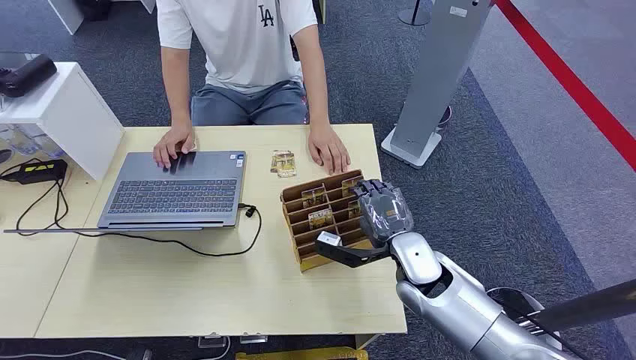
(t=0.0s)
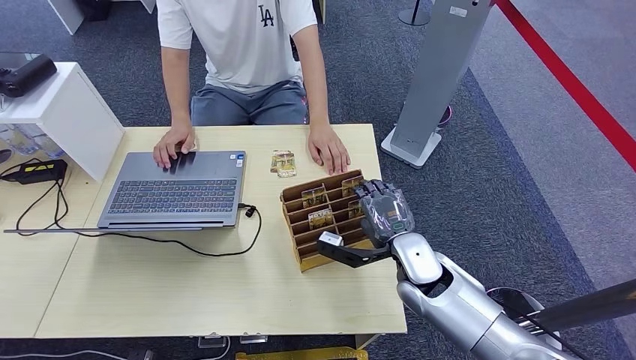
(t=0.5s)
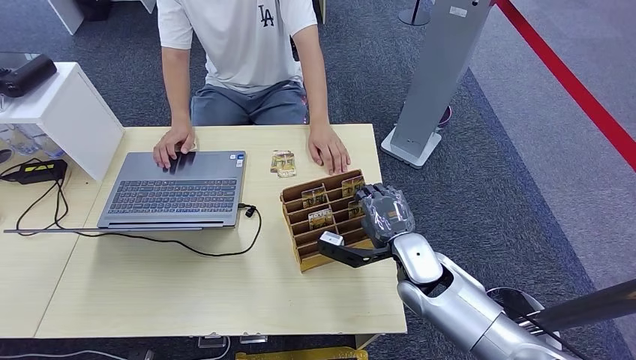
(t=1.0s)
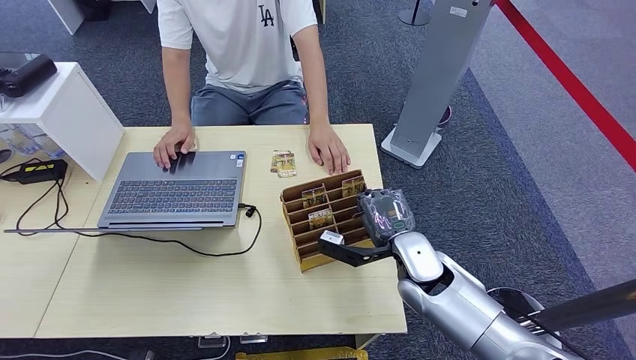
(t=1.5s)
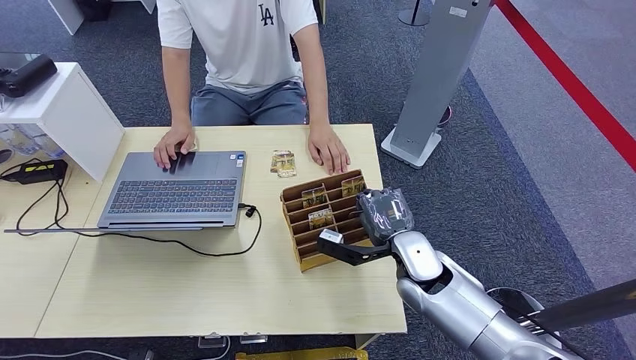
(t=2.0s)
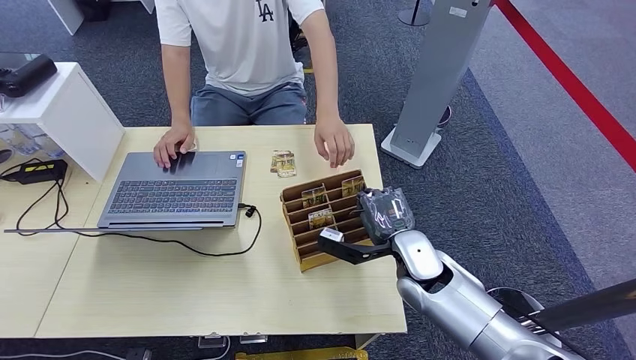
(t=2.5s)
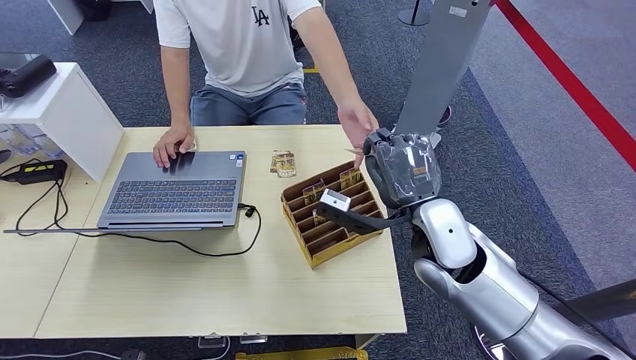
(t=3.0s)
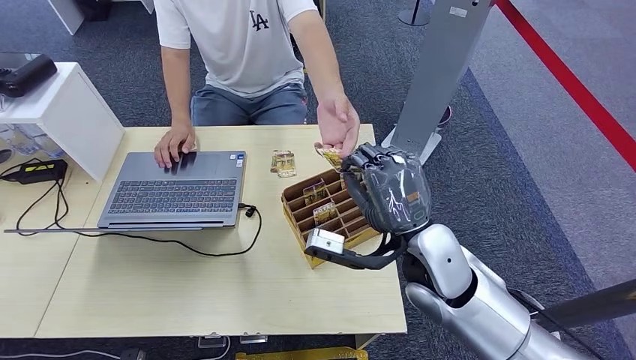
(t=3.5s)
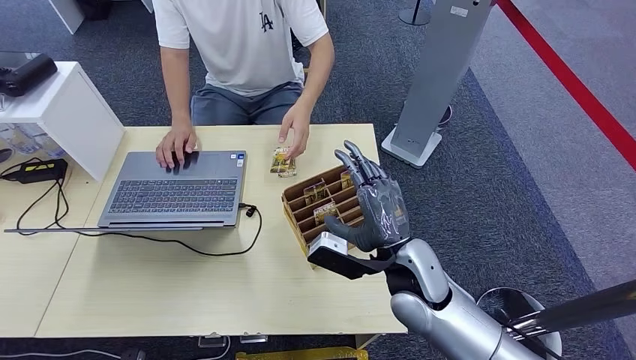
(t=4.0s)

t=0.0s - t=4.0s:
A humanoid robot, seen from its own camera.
Step, t=0.0s - t=2.5s: Pick up the room card from the card holder.
Step, t=3.0s - t=4.0s: Hand the room card to the target.
t=2.0s - t=4.0s: The right hand goes roughly 5 cm upward.
